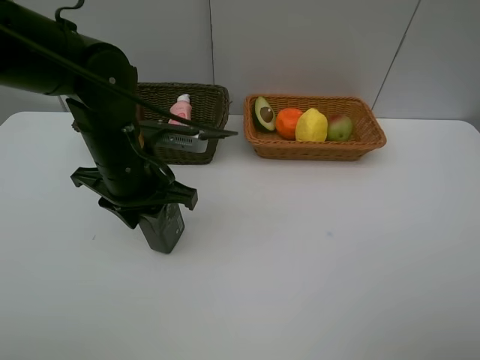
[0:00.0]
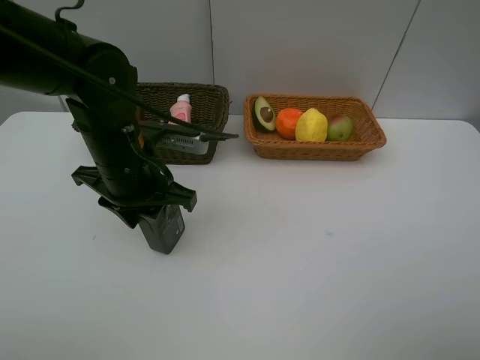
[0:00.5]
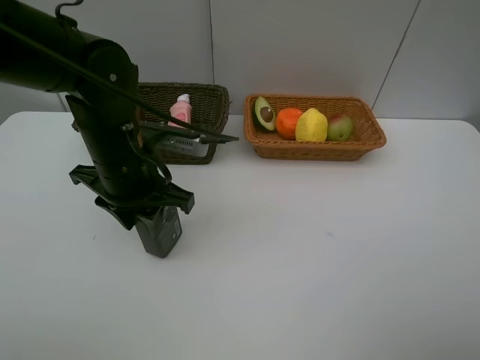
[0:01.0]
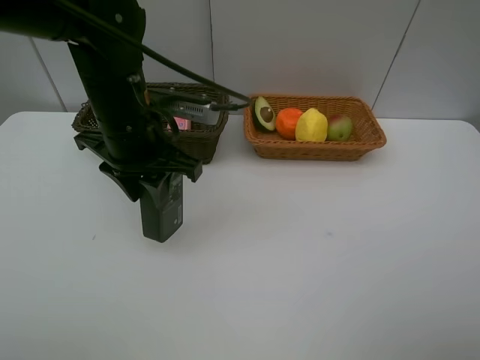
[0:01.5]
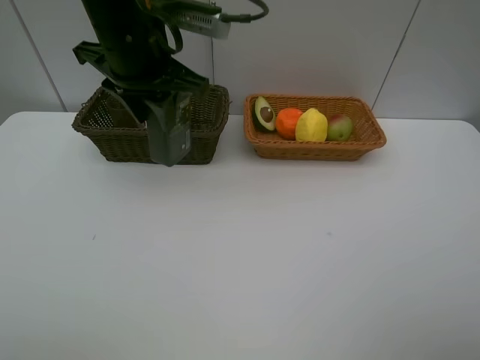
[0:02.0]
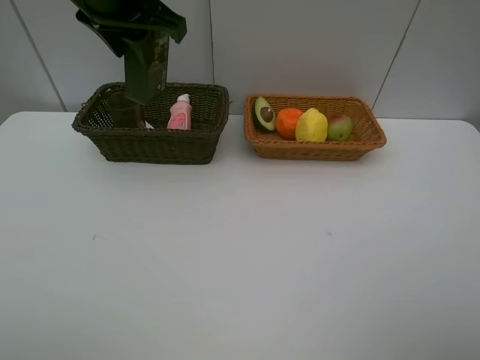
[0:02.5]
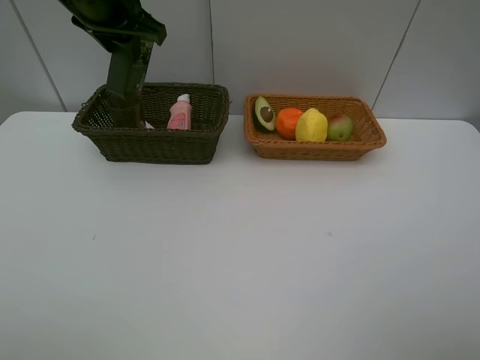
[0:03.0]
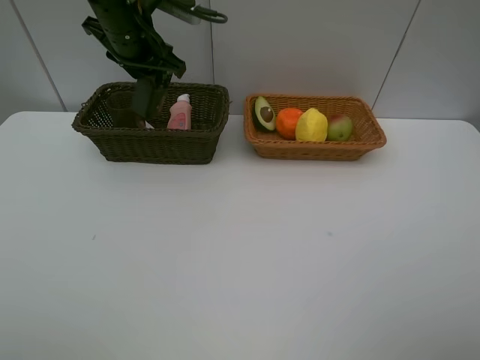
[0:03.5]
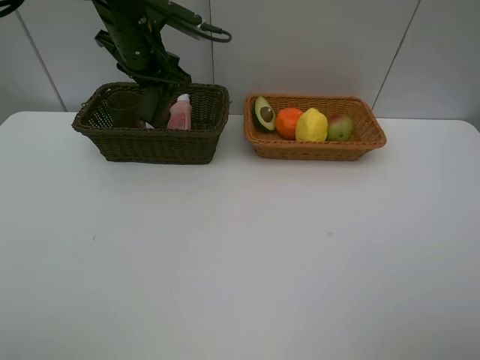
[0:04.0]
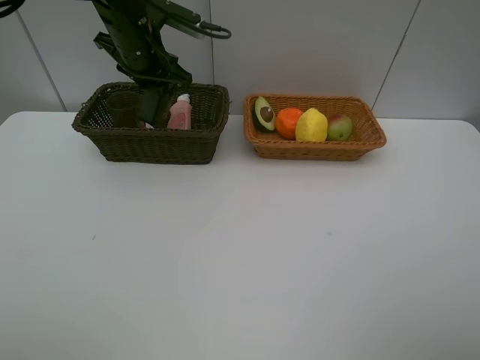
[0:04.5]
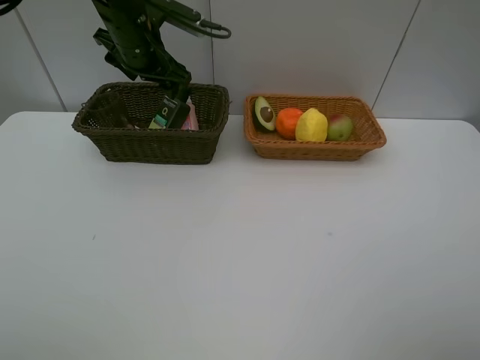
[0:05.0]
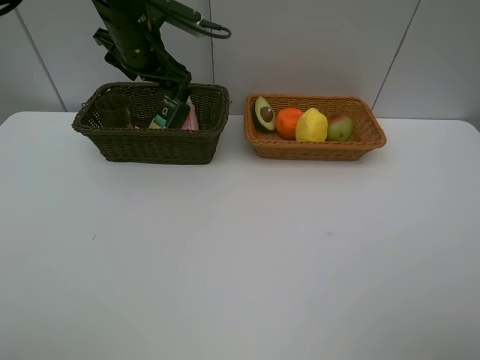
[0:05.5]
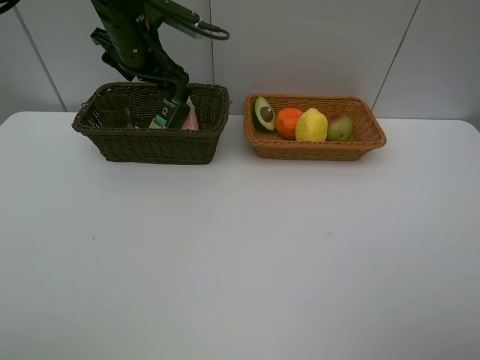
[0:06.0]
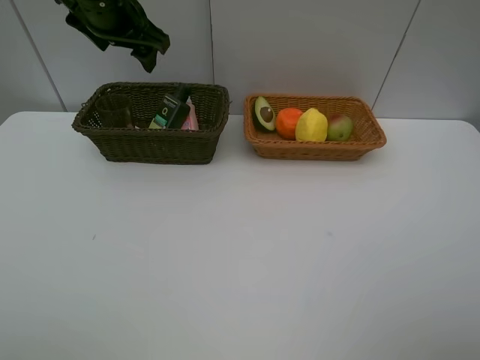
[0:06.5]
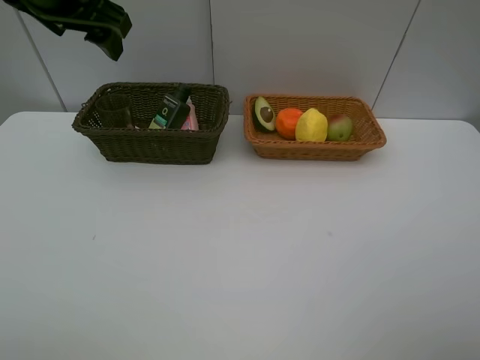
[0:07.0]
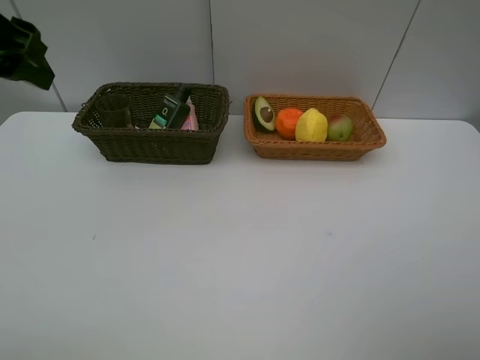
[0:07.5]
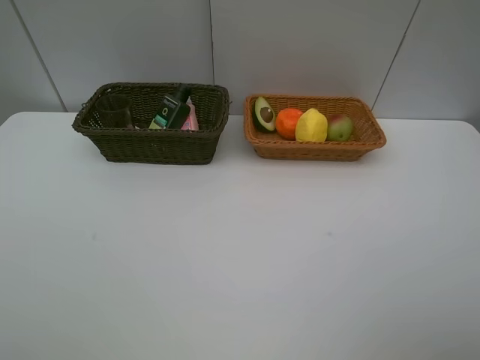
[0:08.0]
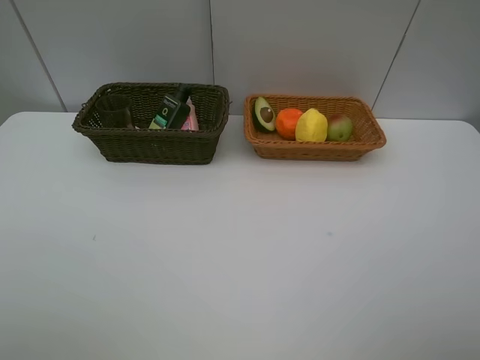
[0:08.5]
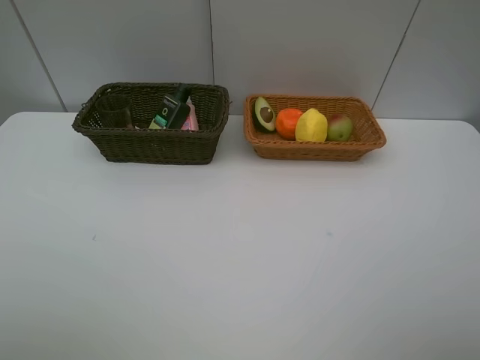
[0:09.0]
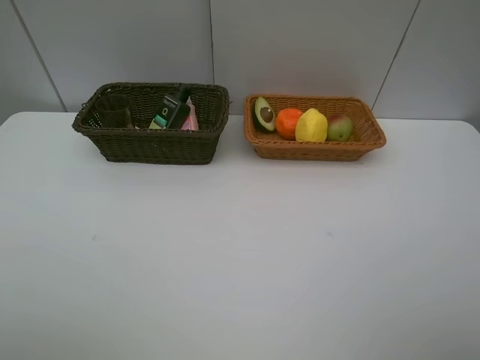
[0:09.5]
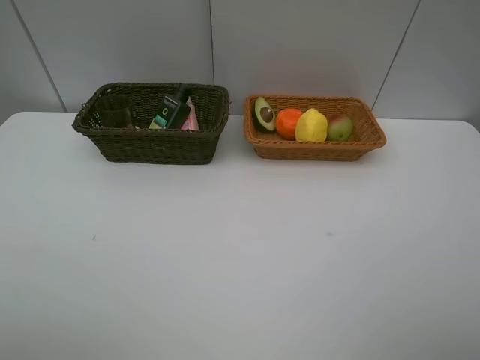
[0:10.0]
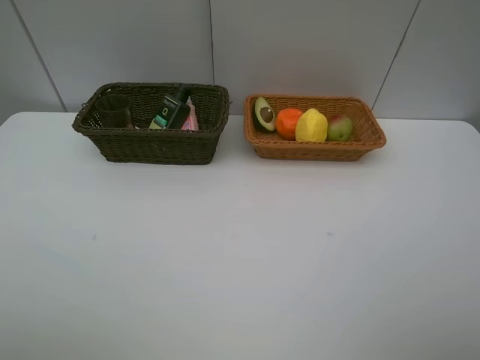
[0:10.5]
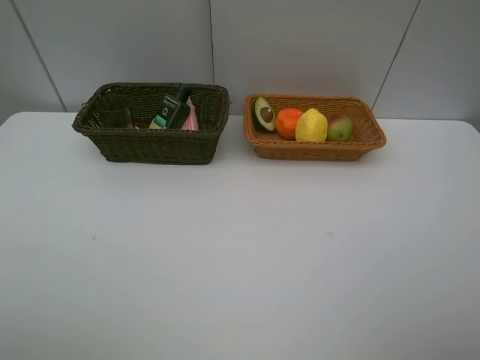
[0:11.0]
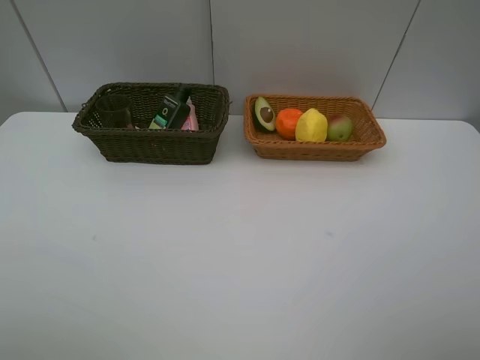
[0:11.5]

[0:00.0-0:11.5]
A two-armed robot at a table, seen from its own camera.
Task of the whole recording: Place multiple objects separately in different baskets.
Step, 0:01.5 to 0:06.0: Place the hard facial cleanser in the dark basket with left gripper.
0:00.0 to 0:02.0: The left gripper goes roughly 15 cm upward and forward.
0:02.0 to 0:04.0: The left gripper shifts about 15 cm forward and downward.
0:04.0 to 0:06.0: The left gripper opens.
0:06.0 to 0:07.5: The left gripper heads backward, upward and to the left, covering approximately 25 cm.
0:07.5 to 0:09.5: The left gripper heads backward and downward, covering about 25 cm.

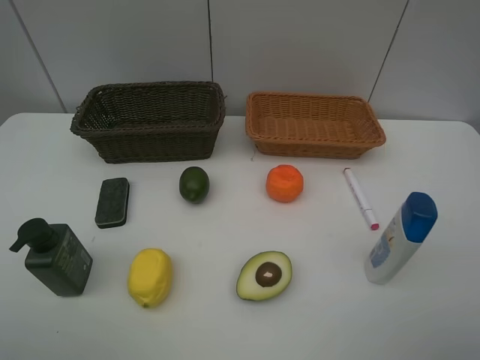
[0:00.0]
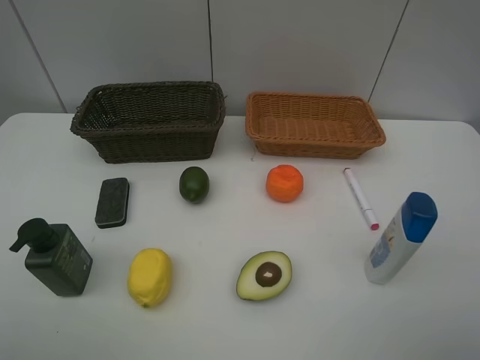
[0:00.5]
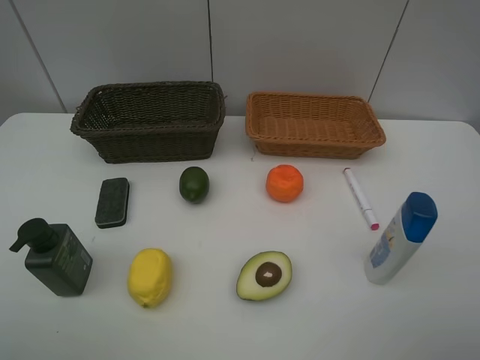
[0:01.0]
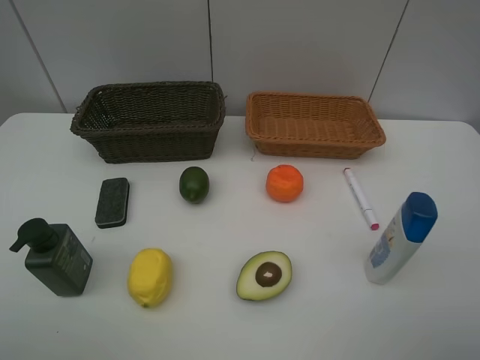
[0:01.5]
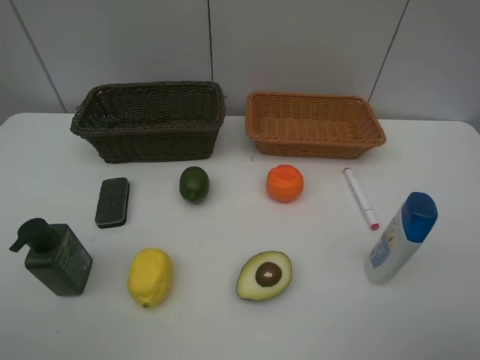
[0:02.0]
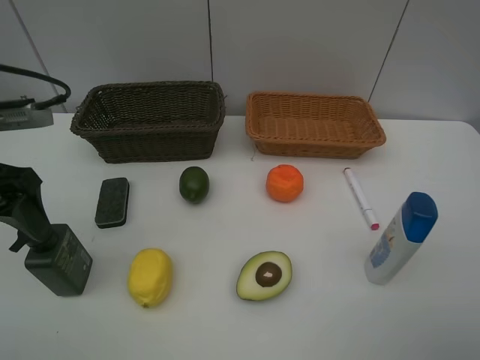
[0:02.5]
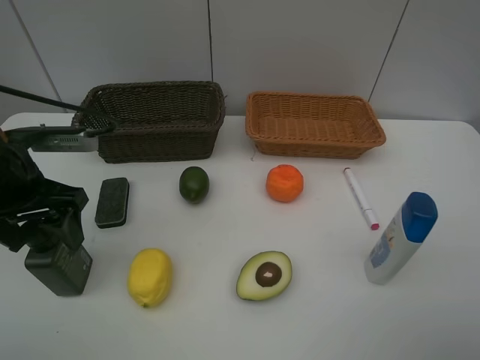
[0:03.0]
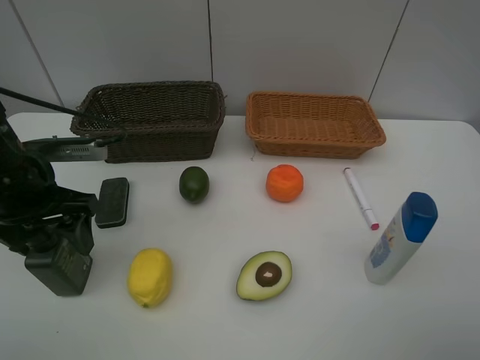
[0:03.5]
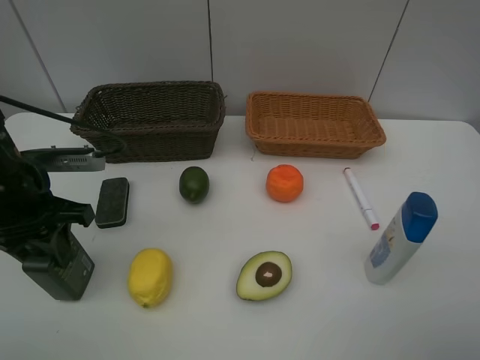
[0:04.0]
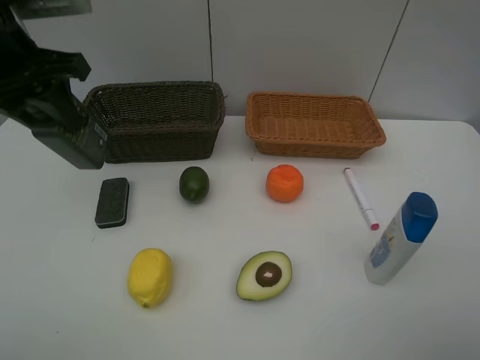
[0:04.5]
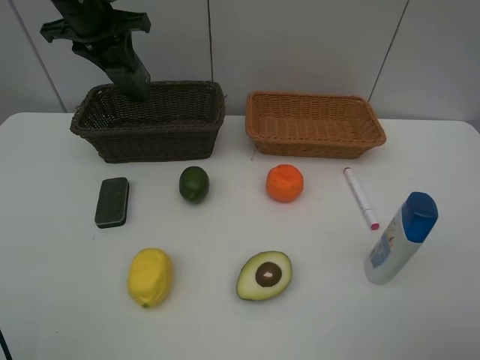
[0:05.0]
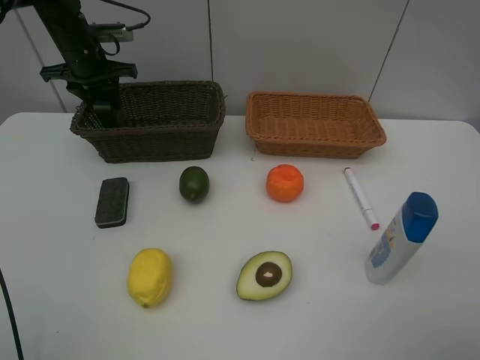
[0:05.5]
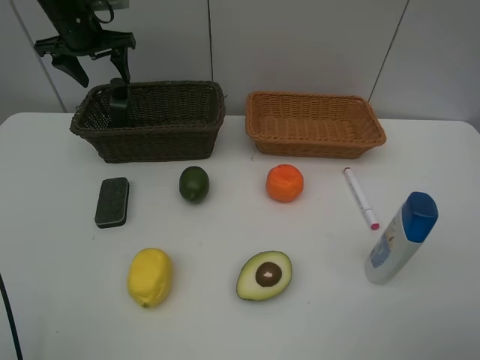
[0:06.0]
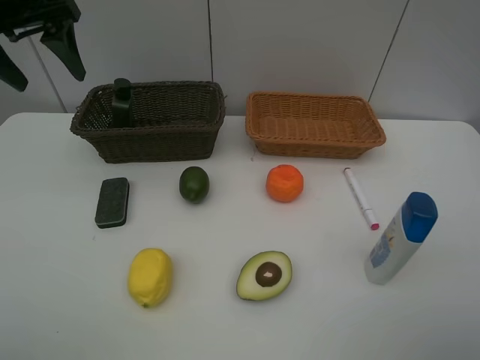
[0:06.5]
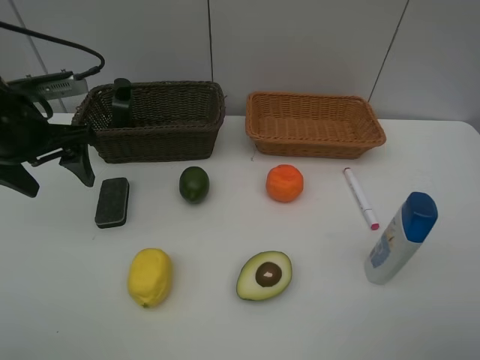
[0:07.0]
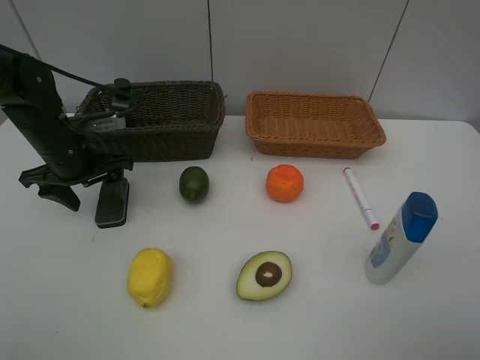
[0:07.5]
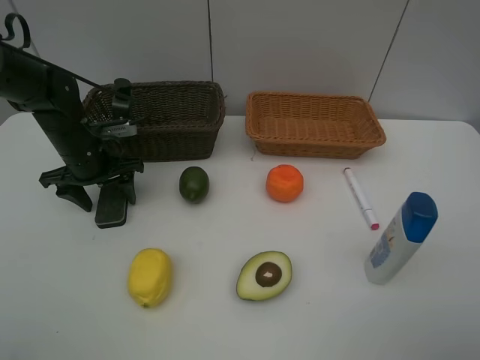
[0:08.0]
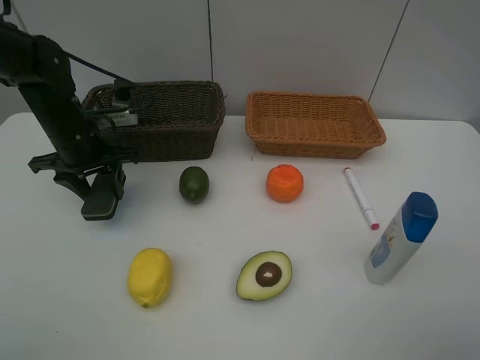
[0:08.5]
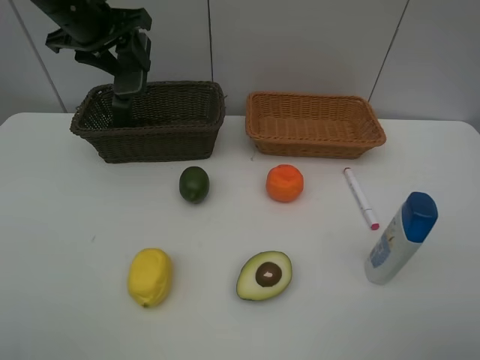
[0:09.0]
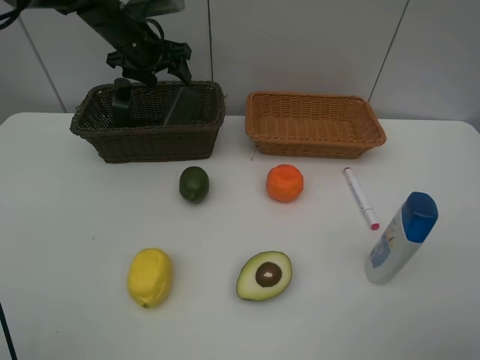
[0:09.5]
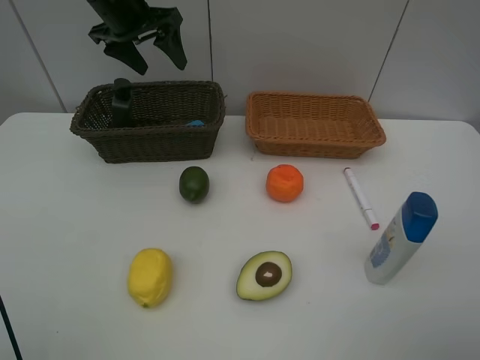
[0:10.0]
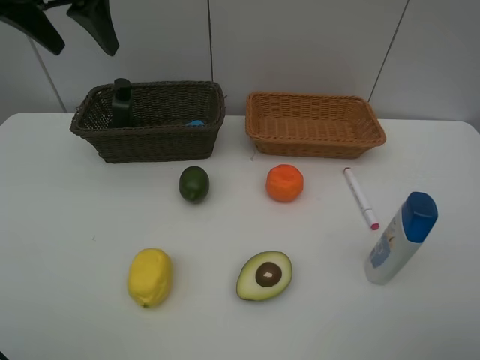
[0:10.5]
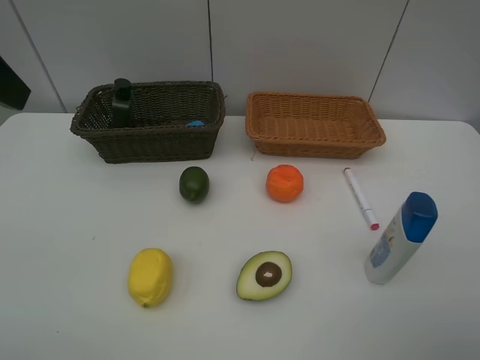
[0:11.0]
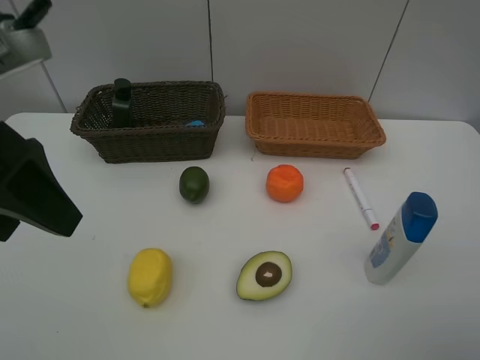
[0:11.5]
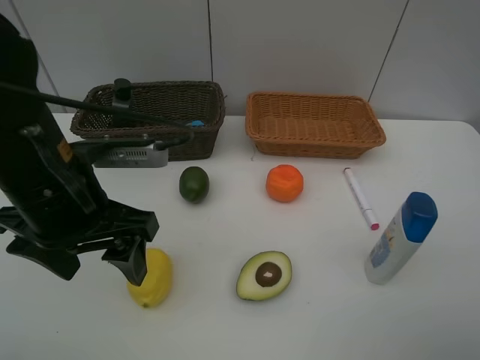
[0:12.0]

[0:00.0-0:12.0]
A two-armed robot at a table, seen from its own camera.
Task of the whole recording: Place multiple objects separately in different baskets.
Step, 0:00.0 to 0:04.0: Pick up the hard facial cleanser with left gripper.
Step, 0:04.5 to 0:06.0: Place the hard facial cleanser in the dark basket with left gripper.
Step, 0:06.5 to 0:08.5: Pick up blackboard eraser with left gripper.
Step, 0:09.0 to 0:09.5: Place the blackboard eraser in the dark basket with left gripper.
0:02.0 to 0:04.0: The left gripper moves forward and downward, some 20 cm, and closes up.
0:04.0 to 0:06.0: The left gripper goes some 30 cm forward, and opens its fingers.
0:06.0 to 0:08.0: The left gripper goes some 20 cm downward and backward.
0:08.0 to 0:10.0: The left gripper swings up and down, approximately 20 cm each way, with 2 reversals, and closes, then reopens.
0:10.0 to 0:12.0: The left gripper heads backward, covering roughly 25 cm.

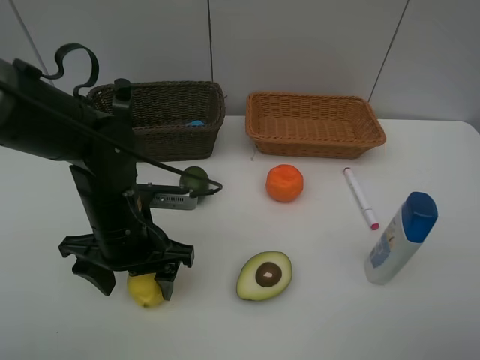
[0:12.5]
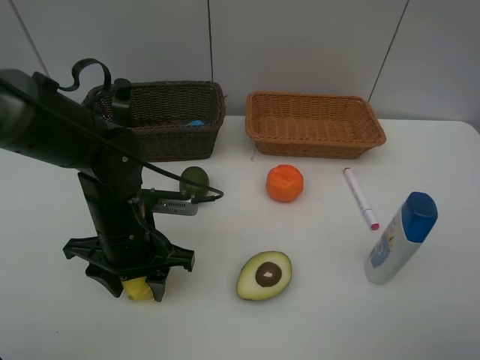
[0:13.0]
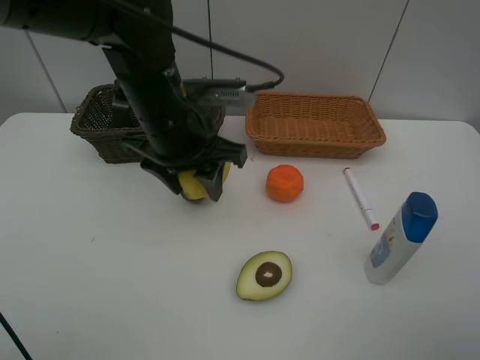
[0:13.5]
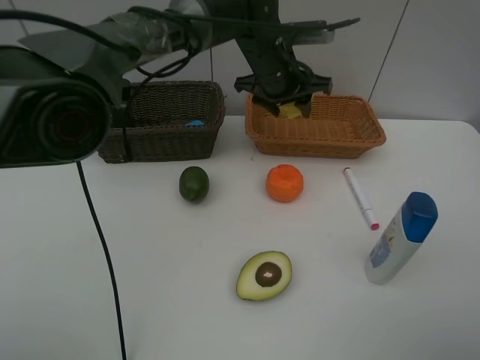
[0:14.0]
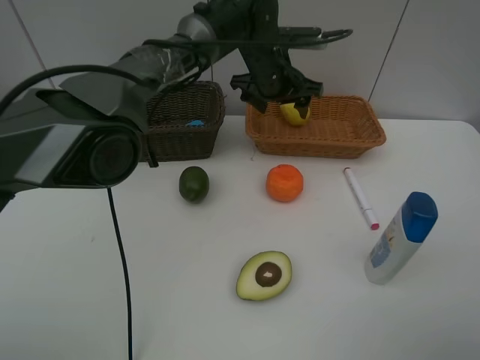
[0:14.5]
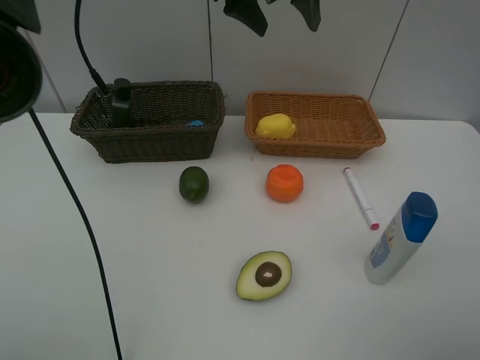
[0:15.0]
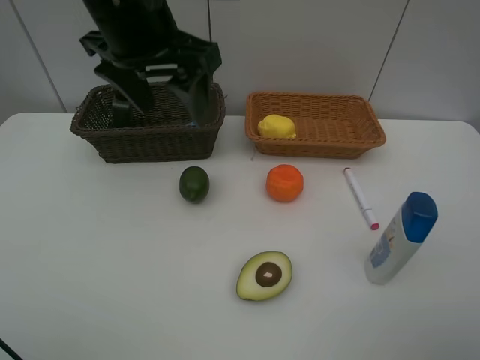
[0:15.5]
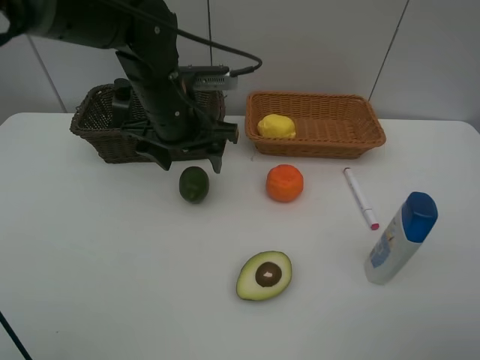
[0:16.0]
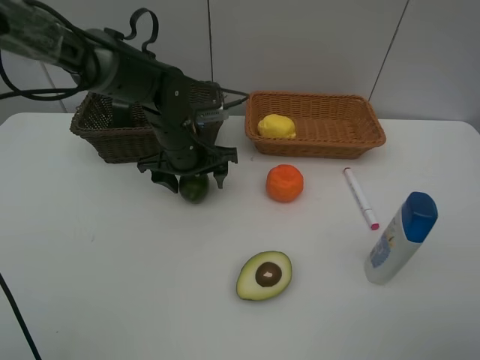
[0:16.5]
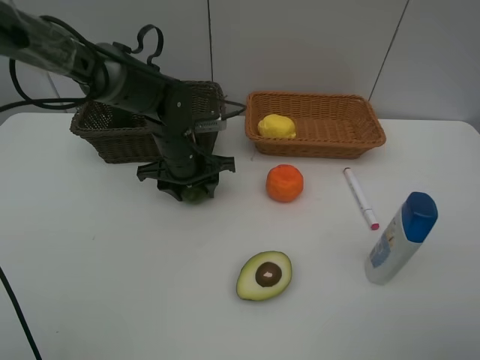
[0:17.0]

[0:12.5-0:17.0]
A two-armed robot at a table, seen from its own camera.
Task of the whole recording: Place multiple objects separately in different baskets.
Step, 0:13.5 to 0:14.5: Place the lemon in the light basket with left gripper.
0:12.5 to 0:14.5: The left gripper shifts approximately 30 cm forward and to the right, and closes, then opens again.
0:14.5 to 0:17.0: The left gripper heads to the left, downward and backward, covering roughly 20 cm, and closes its fingers.
